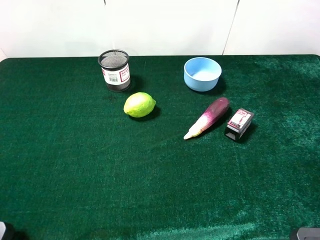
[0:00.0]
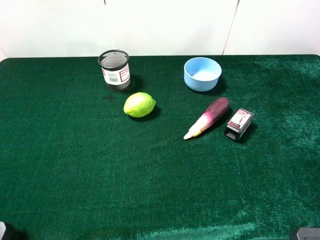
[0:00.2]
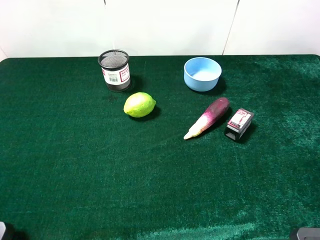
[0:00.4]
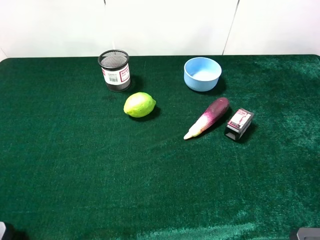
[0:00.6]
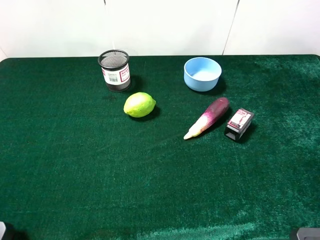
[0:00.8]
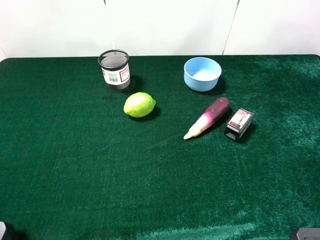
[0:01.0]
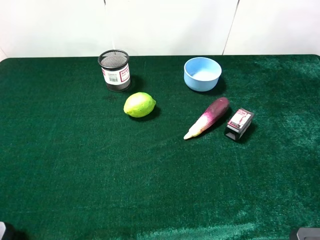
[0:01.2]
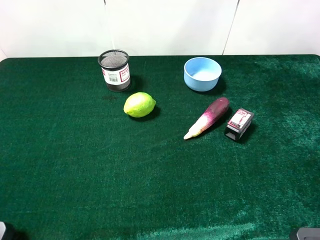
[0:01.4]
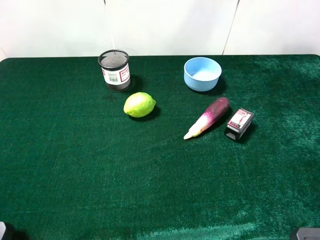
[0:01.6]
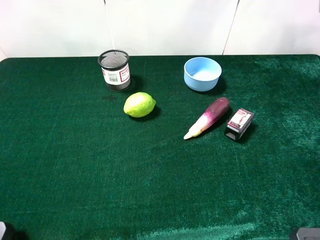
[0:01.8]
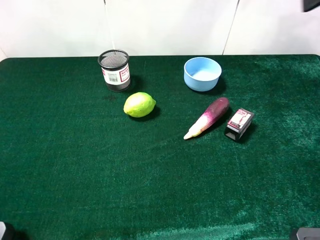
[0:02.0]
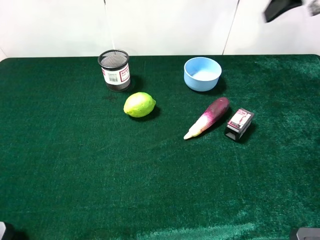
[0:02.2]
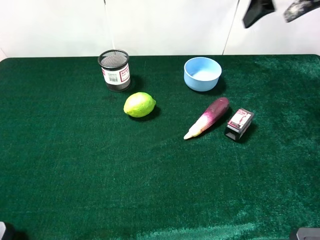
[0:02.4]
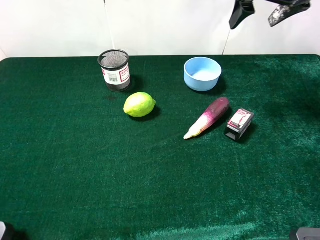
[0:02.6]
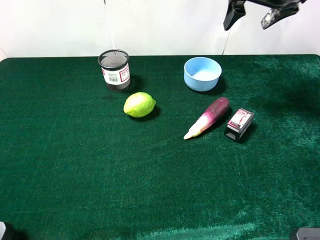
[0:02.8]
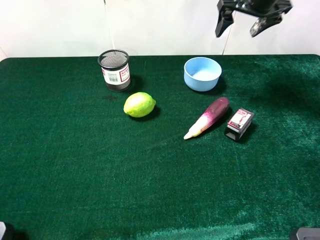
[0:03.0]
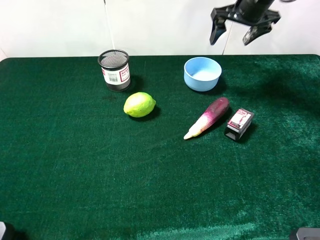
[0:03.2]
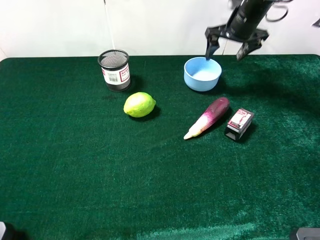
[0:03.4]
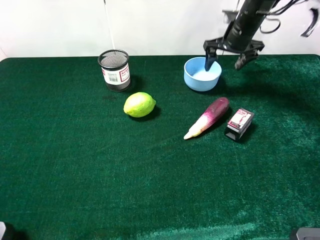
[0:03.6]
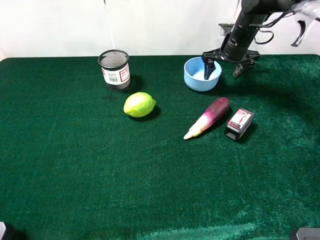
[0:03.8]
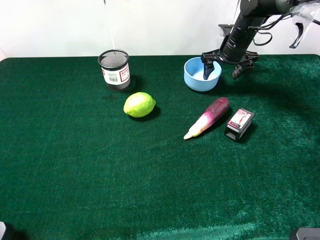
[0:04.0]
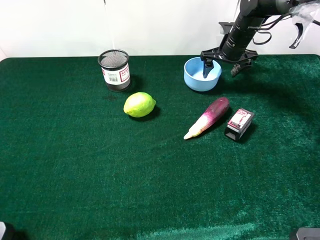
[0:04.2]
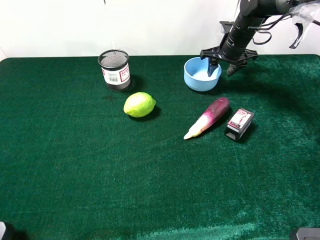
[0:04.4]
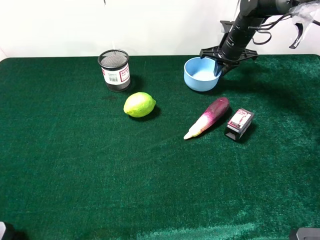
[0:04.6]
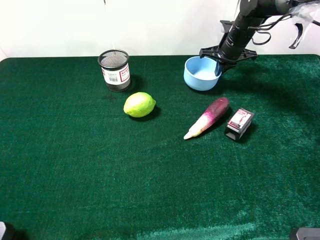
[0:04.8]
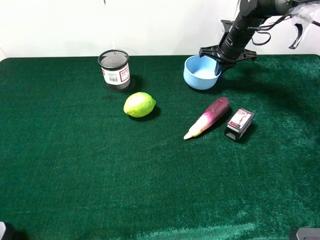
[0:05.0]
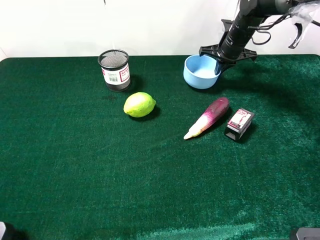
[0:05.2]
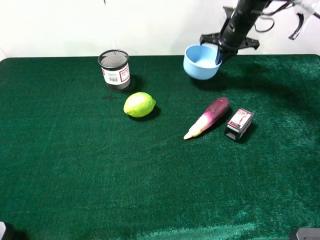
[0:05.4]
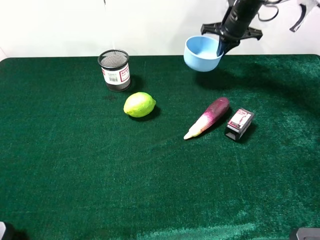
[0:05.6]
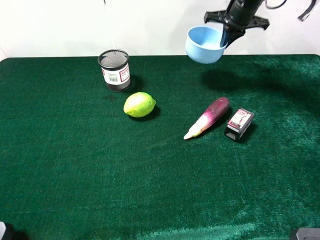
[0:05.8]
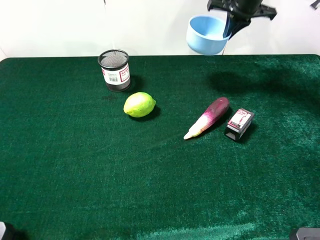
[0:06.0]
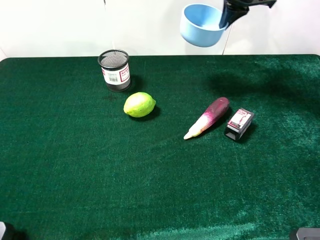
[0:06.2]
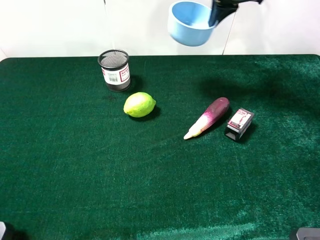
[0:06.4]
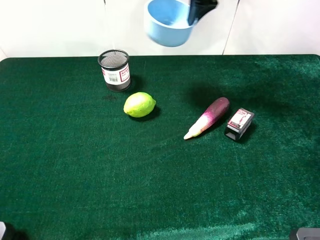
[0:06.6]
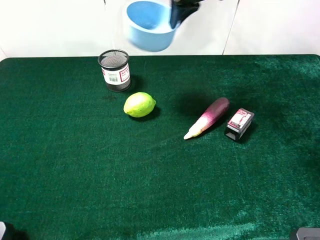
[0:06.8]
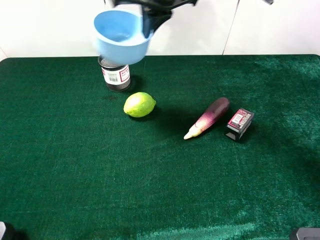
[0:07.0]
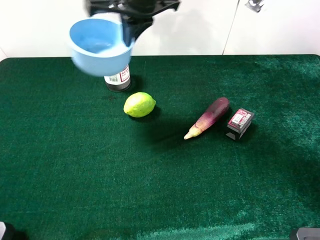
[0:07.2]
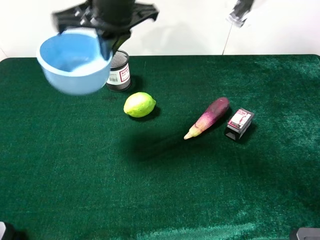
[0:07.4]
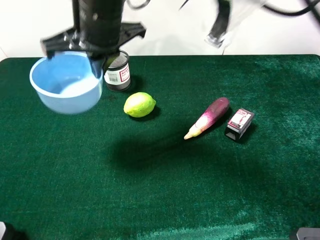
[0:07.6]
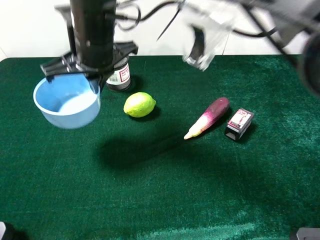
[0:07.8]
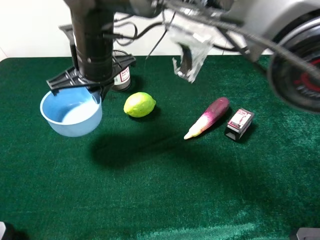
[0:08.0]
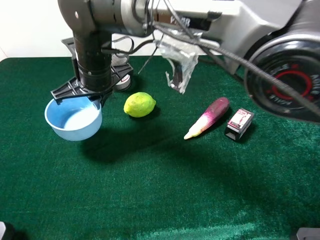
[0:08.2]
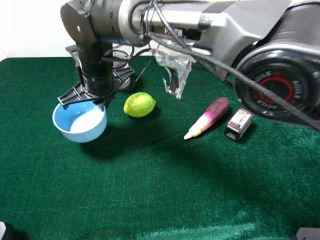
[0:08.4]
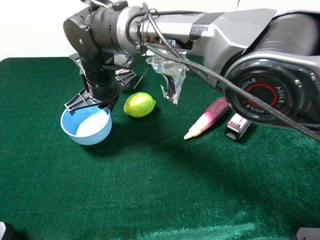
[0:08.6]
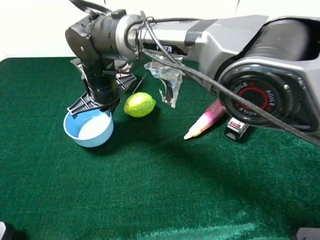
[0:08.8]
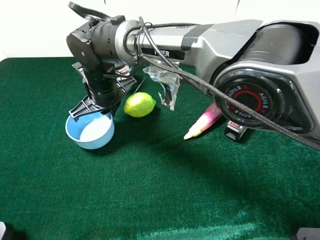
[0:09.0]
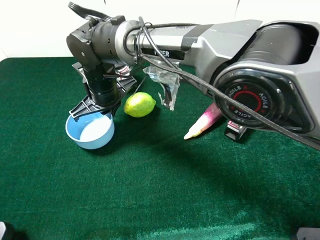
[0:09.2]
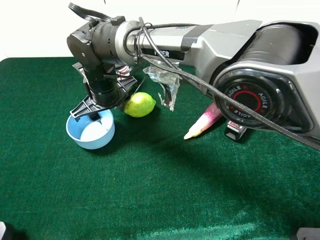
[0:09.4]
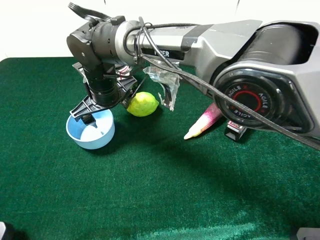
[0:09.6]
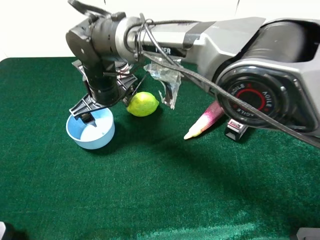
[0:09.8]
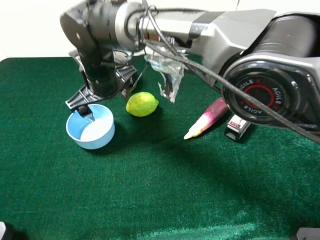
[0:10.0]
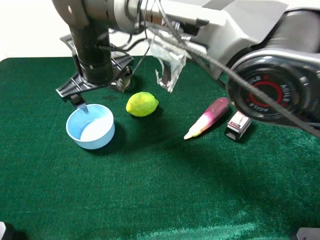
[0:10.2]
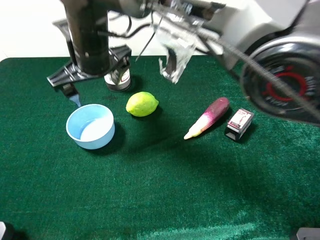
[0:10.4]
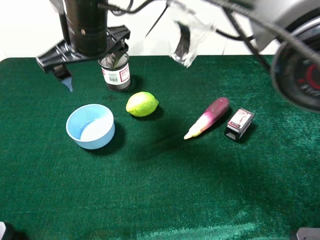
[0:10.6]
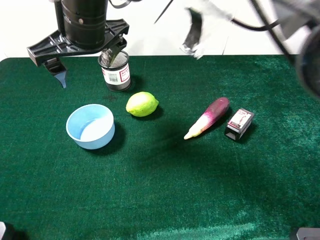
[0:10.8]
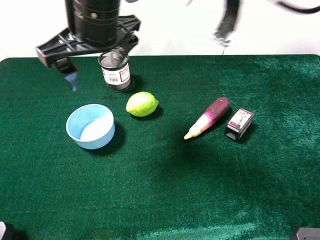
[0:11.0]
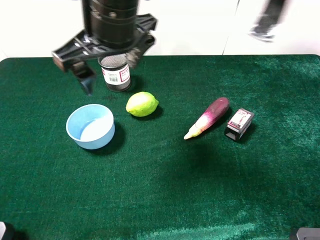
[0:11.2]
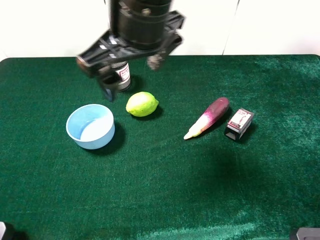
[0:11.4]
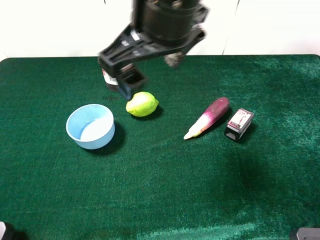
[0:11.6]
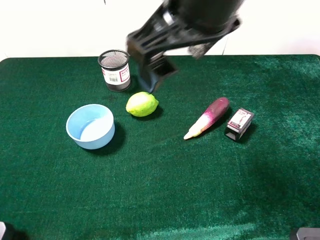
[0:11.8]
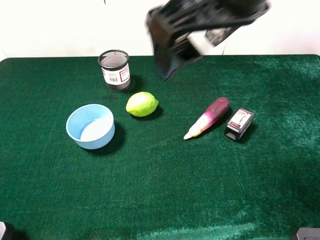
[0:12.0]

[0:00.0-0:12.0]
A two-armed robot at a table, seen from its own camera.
Task of the whole recording: the gripper move the object.
Step, 0:00.0 to 0:05.2: Grasp the blue bowel with the right gripper.
Step, 0:05.4 to 0:10.2: Place the blue bowl on the table with the right gripper.
0:01.6 to 0:03.0: The right gripper shifts approximately 30 cm forward, downward and to the left.
0:03.0 to 0:04.4: The right gripper is displaced downward by roughly 15 cm, and closes up.
0:04.4 to 0:06.0: The right gripper shifts some 10 cm upward, and closes.
0:06.0 to 0:07.6: The right gripper travels to the left and backward by roughly 35 cm.
0:07.6 to 0:09.0: The right gripper heads downward, covering roughly 15 cm.
0:09.0 to 0:10.4: The right gripper is displaced upward by some 10 cm, and opens.
0:10.4 to 0:12.0: The right gripper travels to the right, upward and backward by approximately 25 cm.

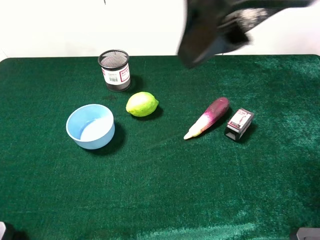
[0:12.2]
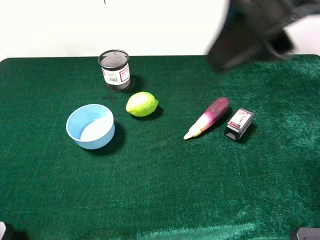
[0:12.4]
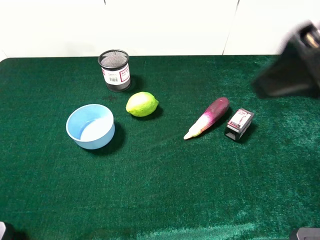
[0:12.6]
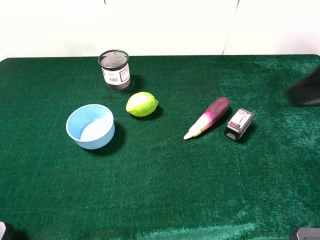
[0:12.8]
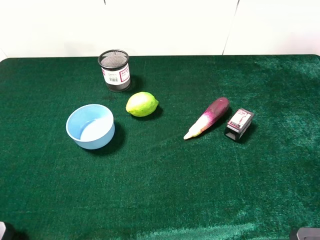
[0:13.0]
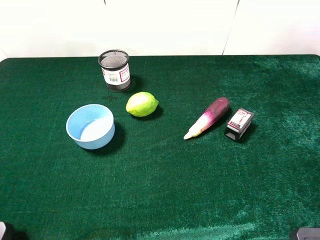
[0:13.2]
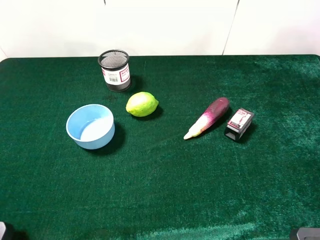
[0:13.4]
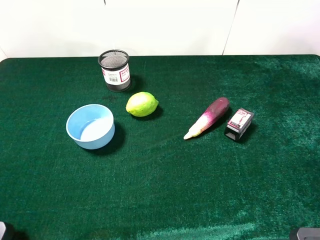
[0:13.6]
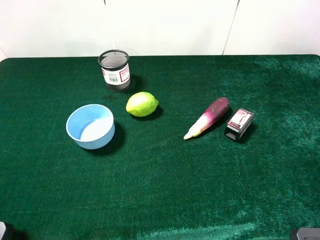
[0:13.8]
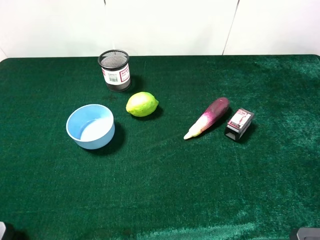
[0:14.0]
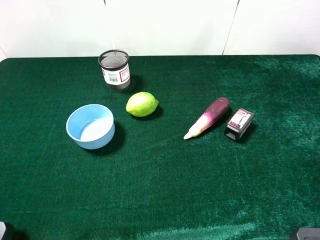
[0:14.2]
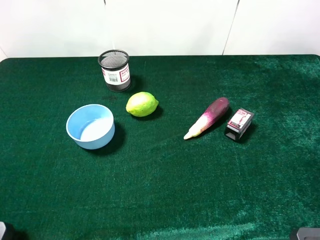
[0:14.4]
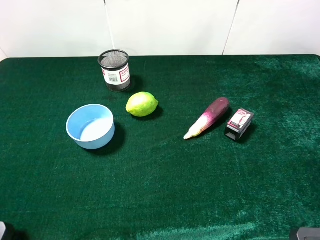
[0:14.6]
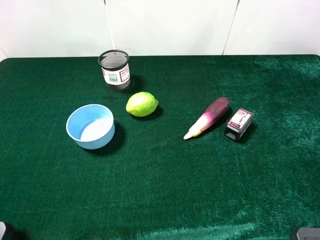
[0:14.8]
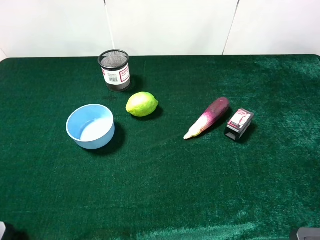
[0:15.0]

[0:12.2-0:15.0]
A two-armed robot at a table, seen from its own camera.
Task of the whole recording: the gripper move the object.
0:12.2 to 0:13.6: The right gripper is displaced to the right, backward and downward by roughly 30 cm.
